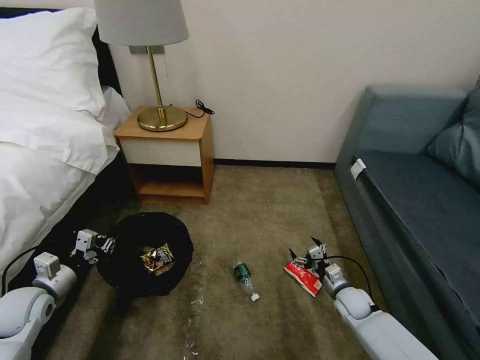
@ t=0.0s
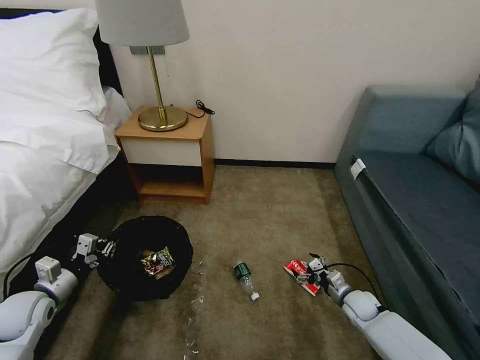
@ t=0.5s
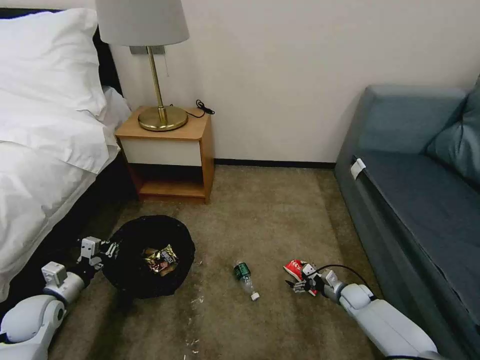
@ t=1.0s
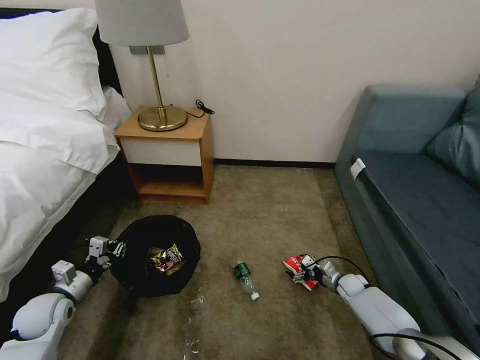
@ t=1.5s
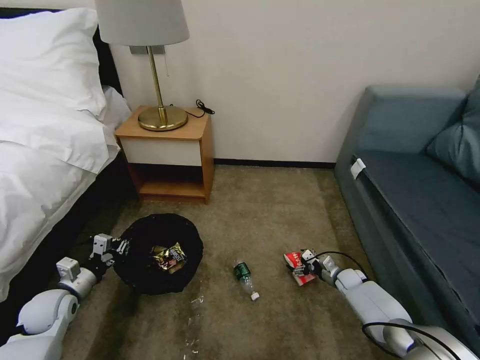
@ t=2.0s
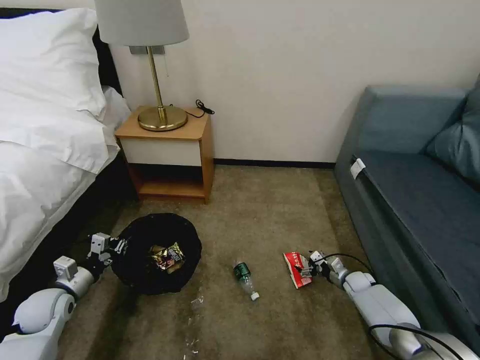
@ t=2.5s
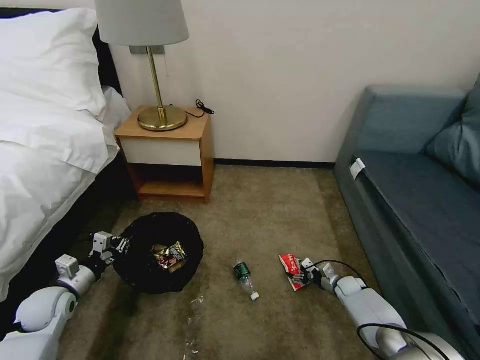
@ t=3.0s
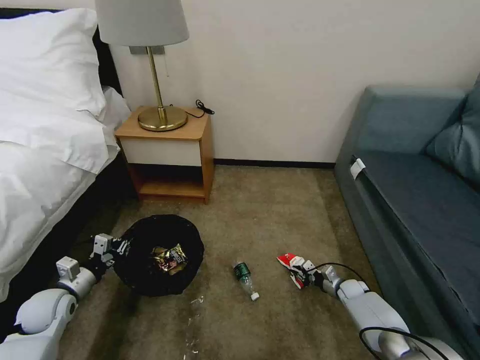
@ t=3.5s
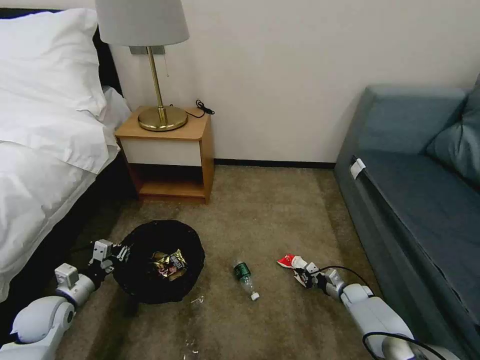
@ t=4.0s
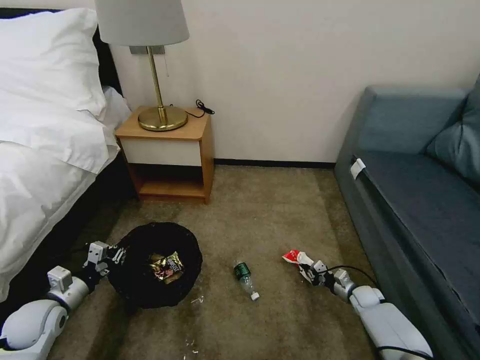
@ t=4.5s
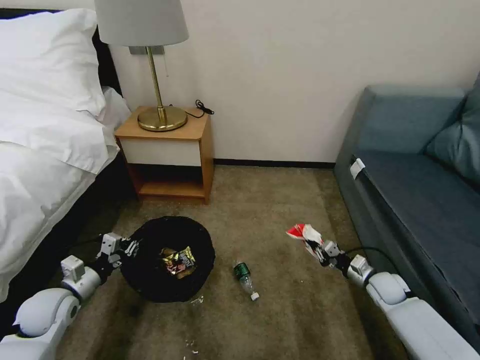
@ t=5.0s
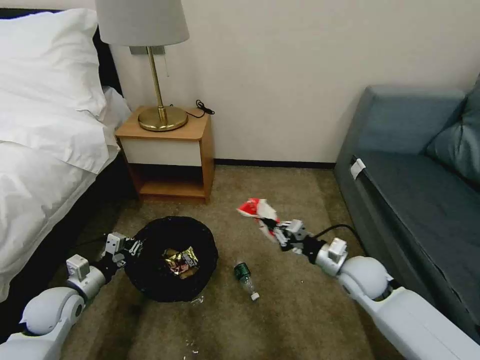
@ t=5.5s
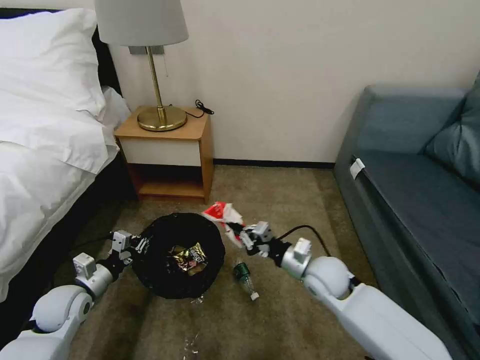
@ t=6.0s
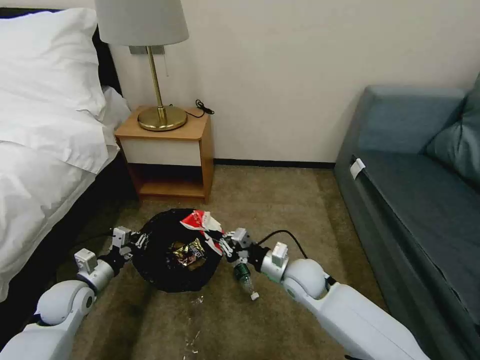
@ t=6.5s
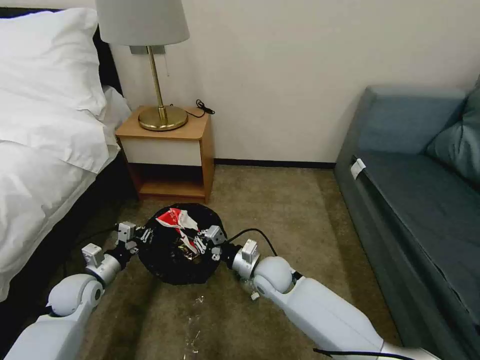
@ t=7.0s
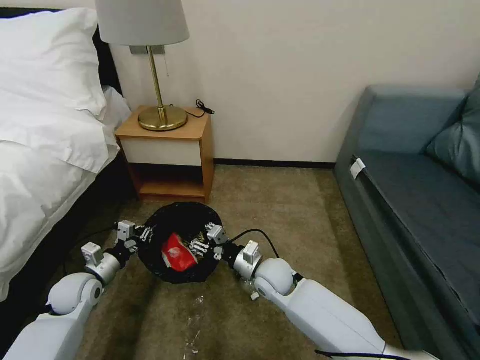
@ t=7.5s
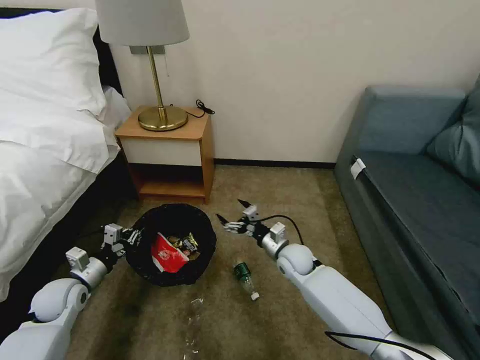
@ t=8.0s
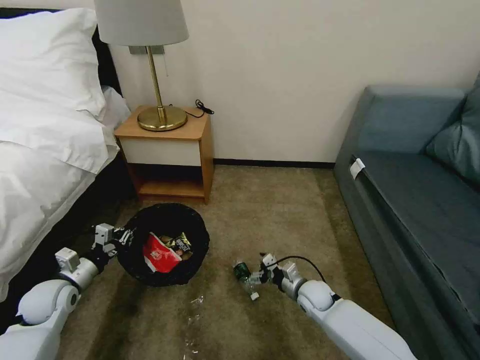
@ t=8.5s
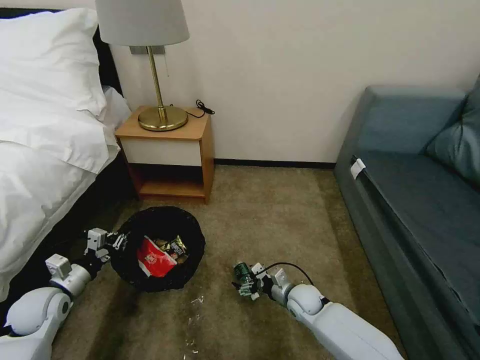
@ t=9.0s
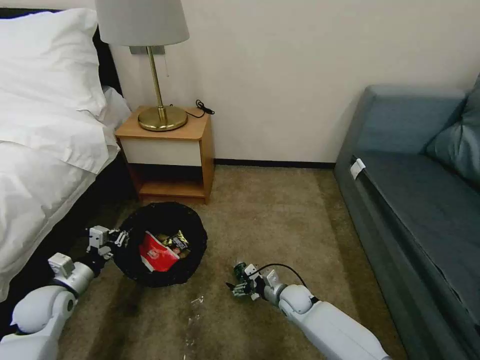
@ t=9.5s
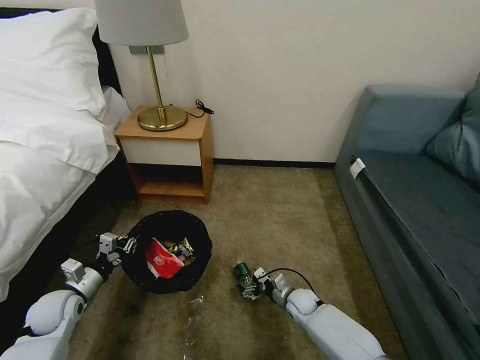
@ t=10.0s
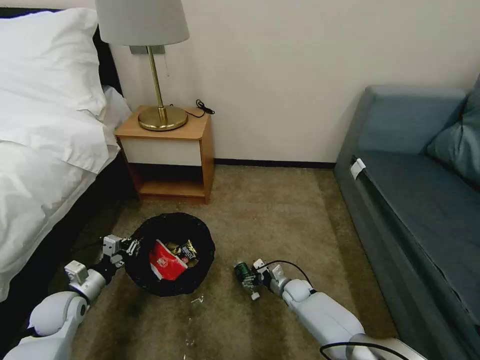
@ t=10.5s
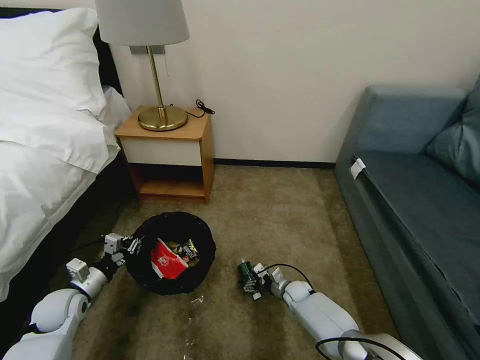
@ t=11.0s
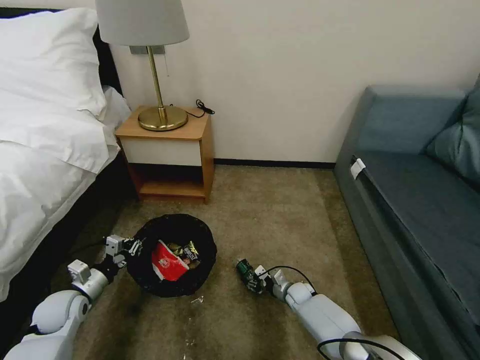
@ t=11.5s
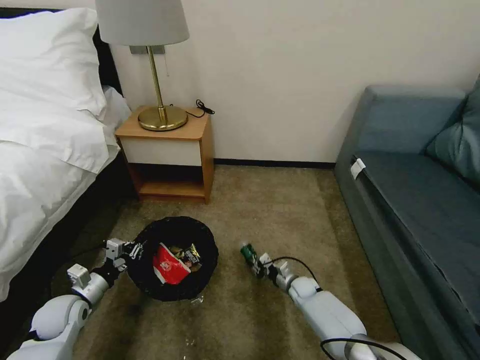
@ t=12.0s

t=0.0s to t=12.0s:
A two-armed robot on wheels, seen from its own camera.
Task of the whole recording: Pick up the trash bin, then pick up the garbage on the floor and place it into the trash bin.
t=0.0s to t=2.0s: The left gripper moves about 5 cm; the right gripper moves forward, downward and to the right, some 10 cm.
t=2.0s to t=4.0s: The right gripper changes place by roughly 5 cm, and closes.
t=4.0s to t=6.0s: The right gripper goes about 30 cm upward and to the left, while the left gripper changes place by some 5 cm.
t=6.0s to t=8.0s: The right gripper is displaced forward, downward and to the left by some 10 cm, and opens its fingers.
t=8.0s to t=10.0s: The right gripper travels downward by roughly 15 cm.
t=10.0s to t=12.0s: The right gripper ends up about 5 cm from where it was, and closes its fingers.

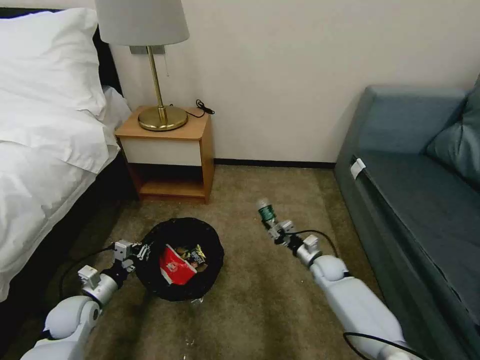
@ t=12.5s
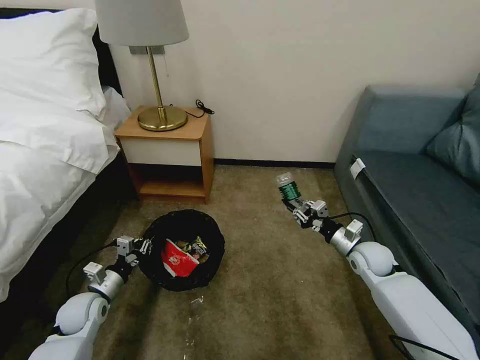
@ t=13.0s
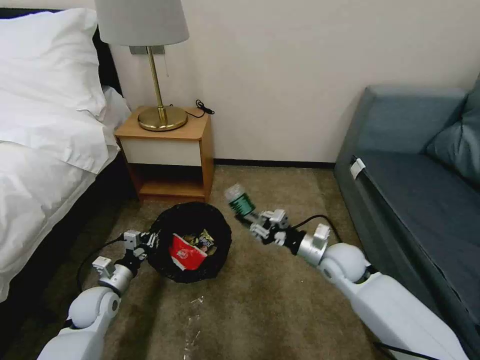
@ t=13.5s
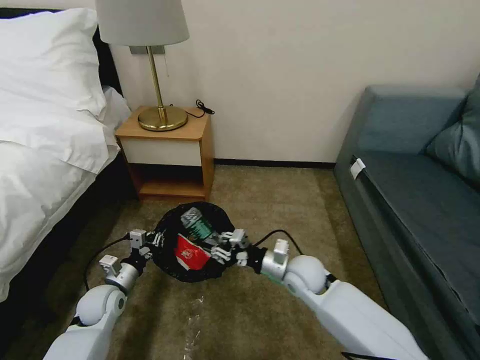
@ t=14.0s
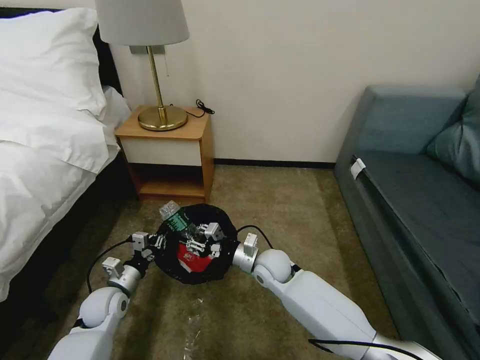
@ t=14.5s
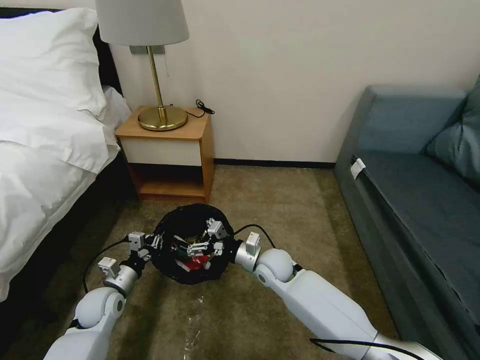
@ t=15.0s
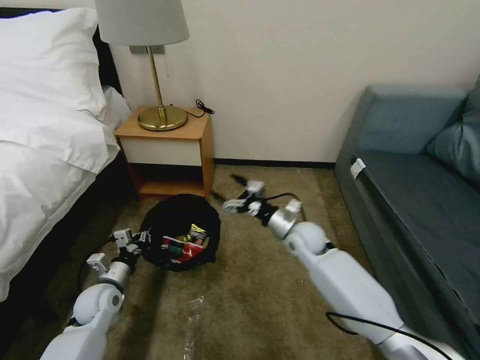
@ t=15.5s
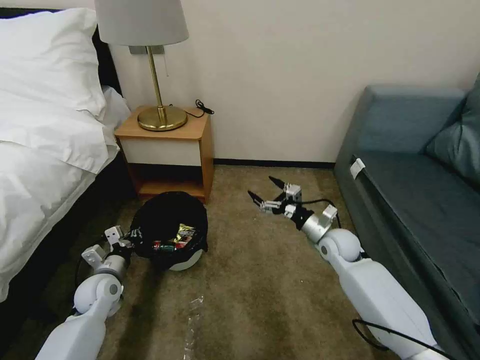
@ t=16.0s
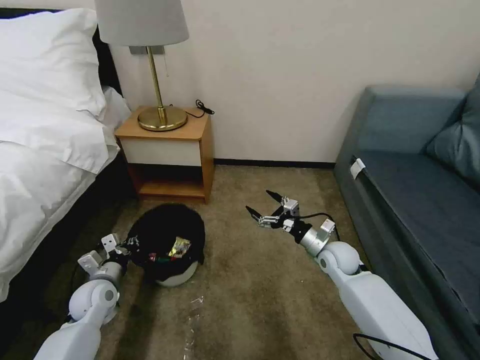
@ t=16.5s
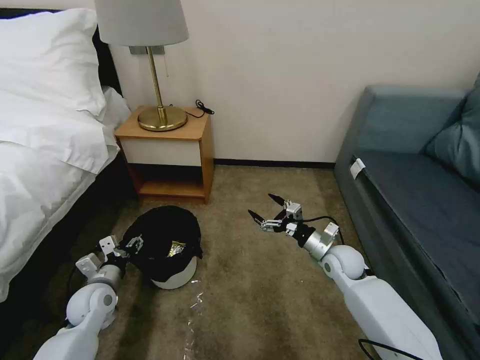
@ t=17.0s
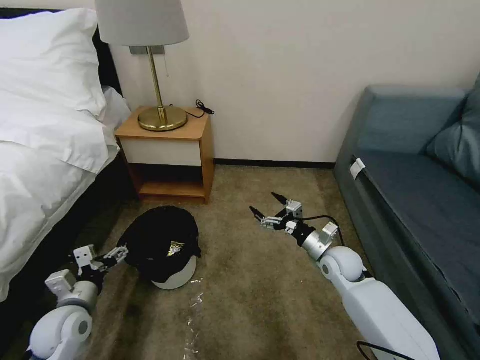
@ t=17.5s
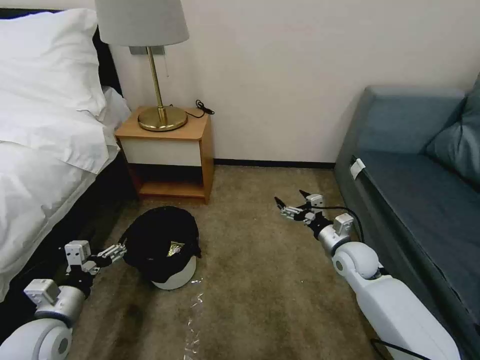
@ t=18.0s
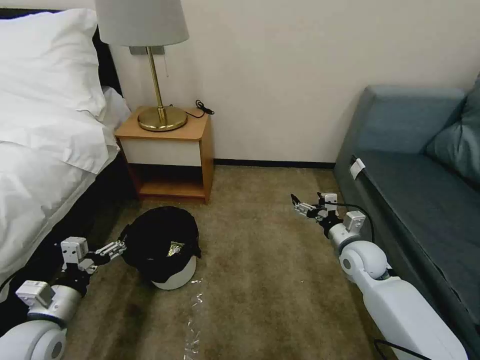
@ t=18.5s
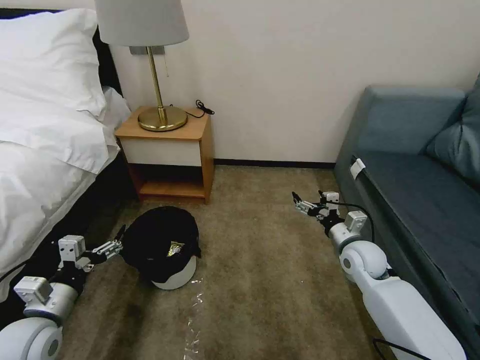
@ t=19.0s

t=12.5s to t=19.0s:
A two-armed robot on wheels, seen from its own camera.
Task of the whole recording: Pick up the trash bin, then pick up the garbage on the floor and place it into the trash bin.
t=12.5s to t=14.5s: The right gripper goes approximately 20 cm to the left and upward, while the left gripper heads to the right, covering about 5 cm.
t=14.5s to t=17.0s: The right gripper goes approximately 20 cm to the right, and opens up. Meanwhile the left gripper opens up.
t=17.0s to t=19.0s: The left gripper shifts approximately 15 cm backward and upward. Meanwhile the right gripper ends up some 5 cm from where it was.

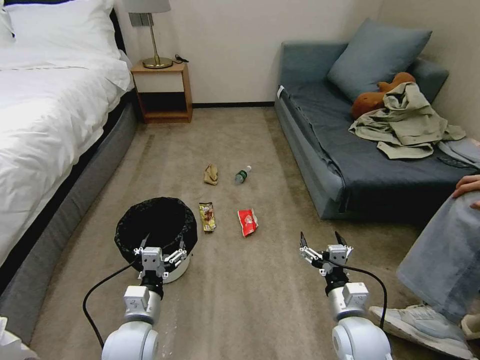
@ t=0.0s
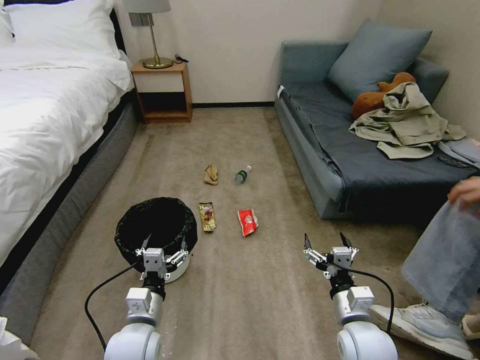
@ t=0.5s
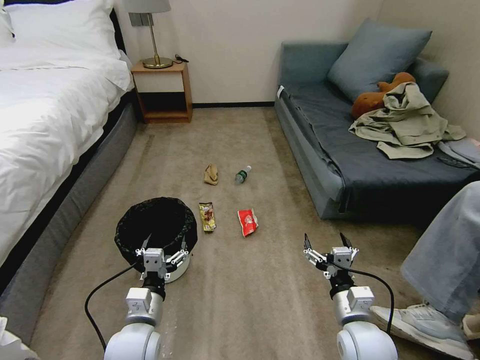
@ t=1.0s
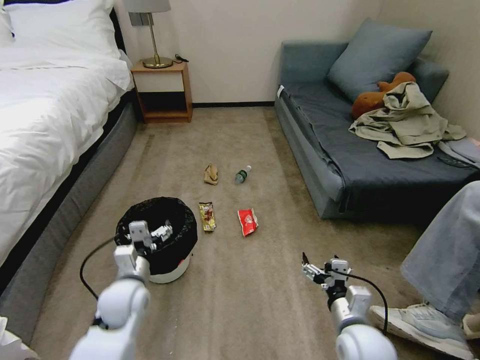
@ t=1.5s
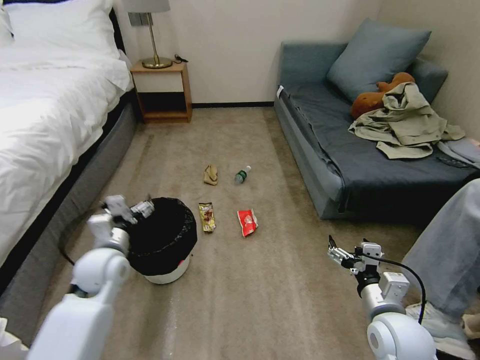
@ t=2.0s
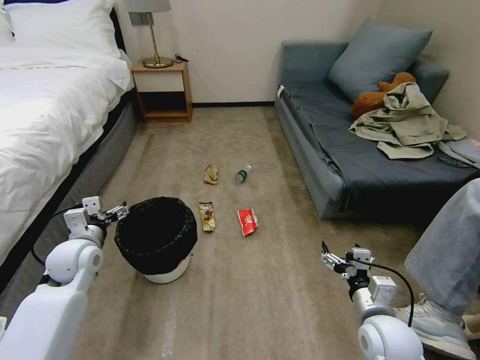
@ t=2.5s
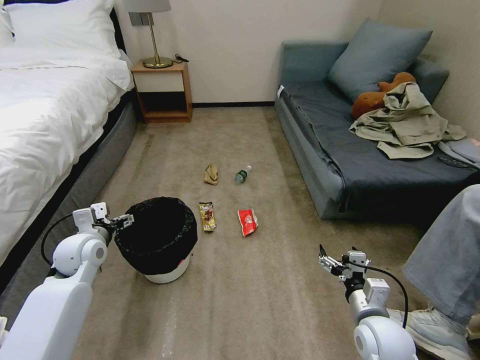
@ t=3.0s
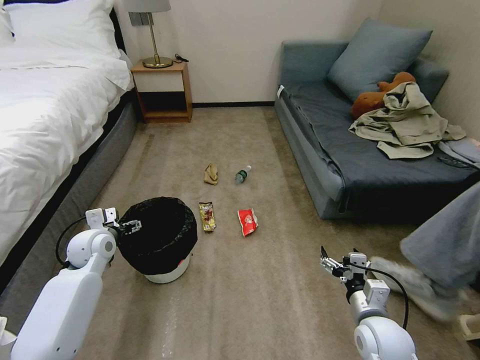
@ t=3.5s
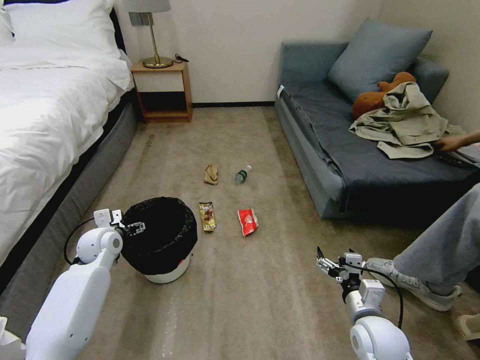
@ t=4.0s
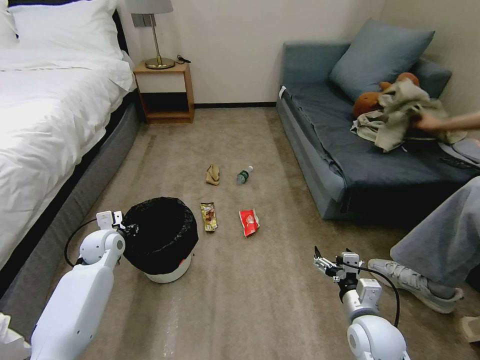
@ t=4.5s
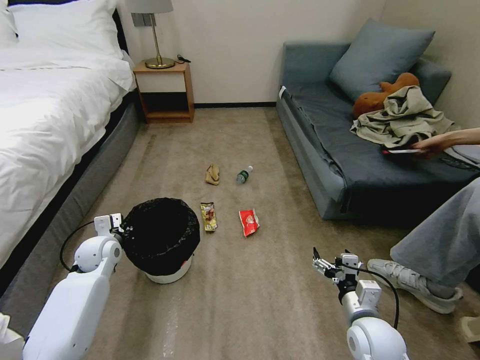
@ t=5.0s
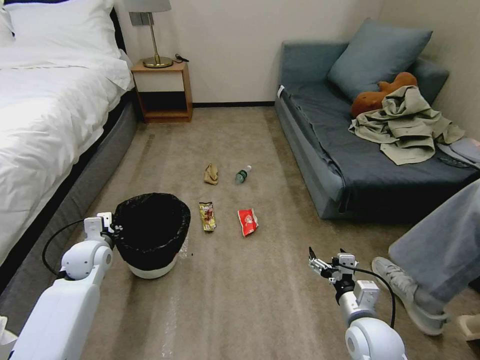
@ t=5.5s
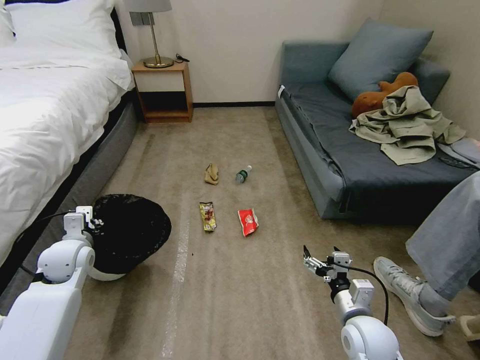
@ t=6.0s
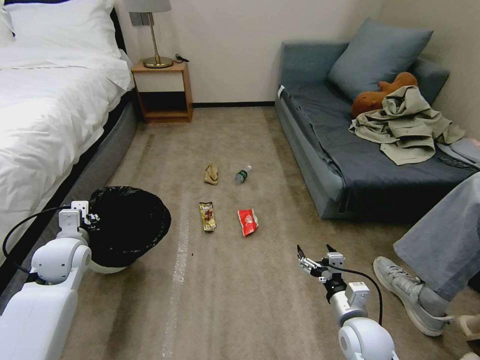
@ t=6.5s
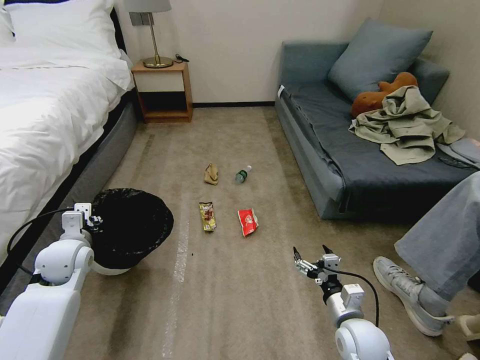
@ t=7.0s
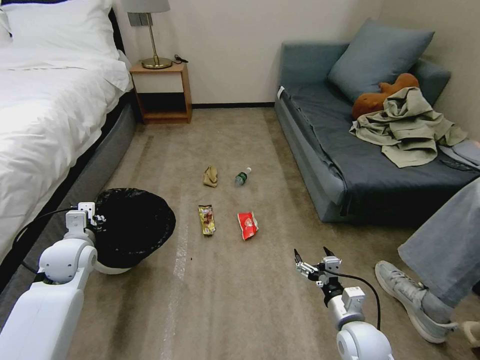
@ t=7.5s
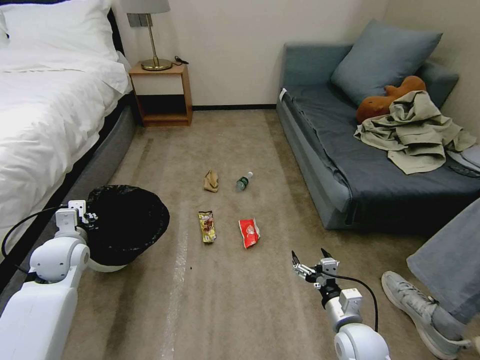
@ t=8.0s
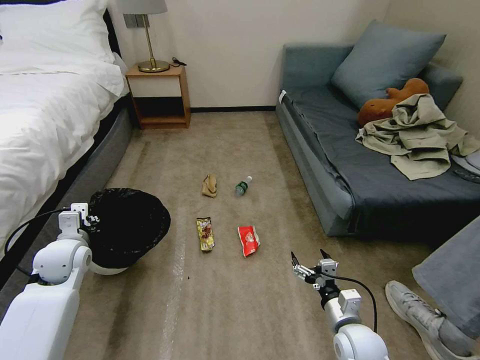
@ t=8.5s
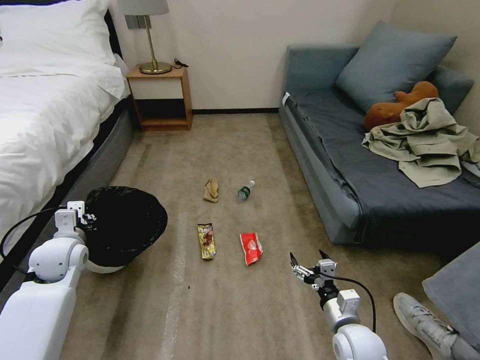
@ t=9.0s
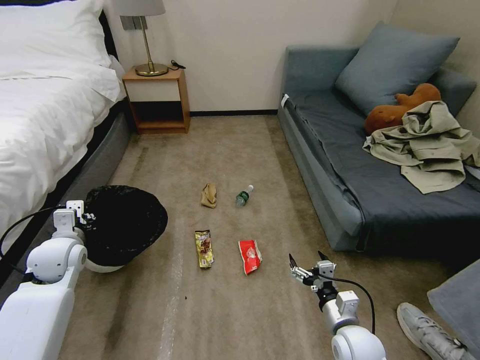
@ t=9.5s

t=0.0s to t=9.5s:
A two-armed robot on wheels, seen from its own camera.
Task of the whole recording: Pick up the trash bin, then pick up the garbage on the floor and place it into the trash bin.
t=2.0s to t=4.0s: The left gripper shifts roughly 10 cm forward and to the left, while the right gripper is displaced downward by approximately 5 cm.
t=4.0s to t=5.5s: The left gripper closes up.
t=5.5s to t=7.5s: The grippers make only small movements.
